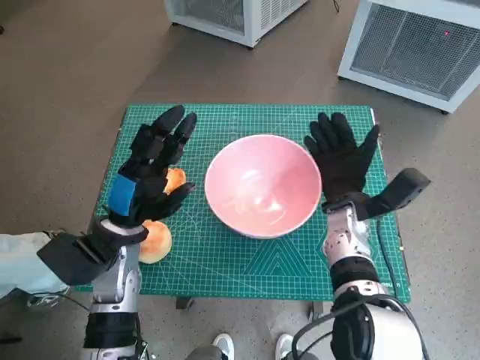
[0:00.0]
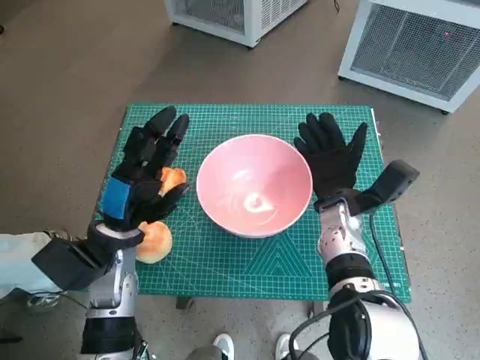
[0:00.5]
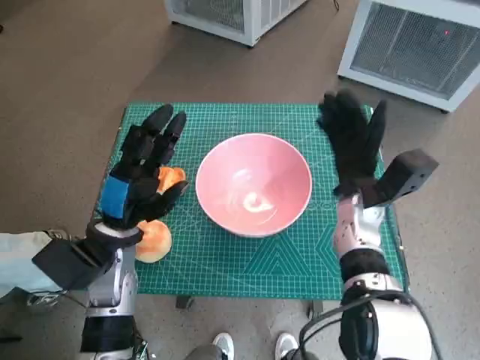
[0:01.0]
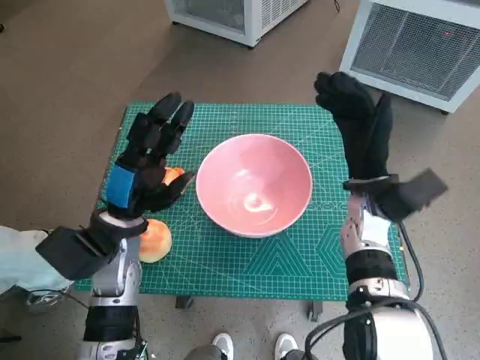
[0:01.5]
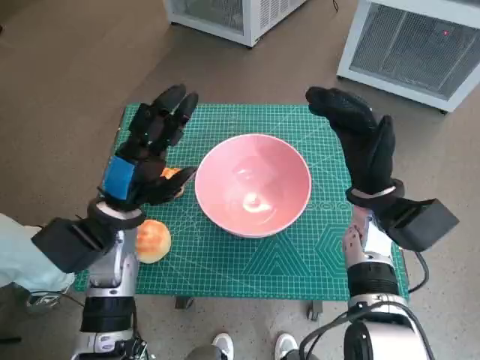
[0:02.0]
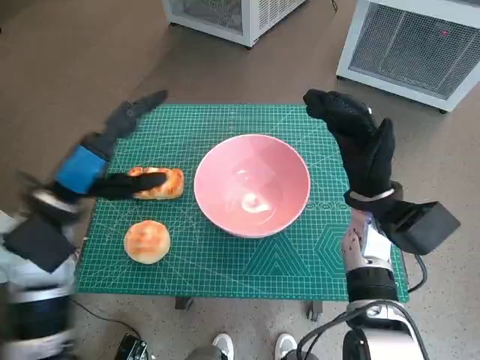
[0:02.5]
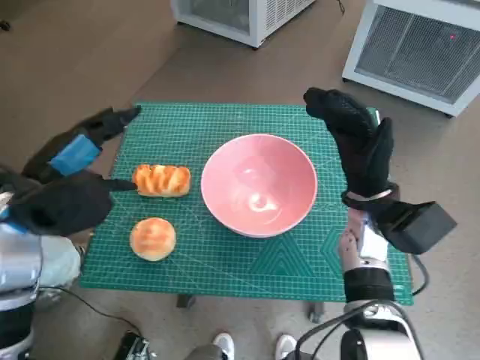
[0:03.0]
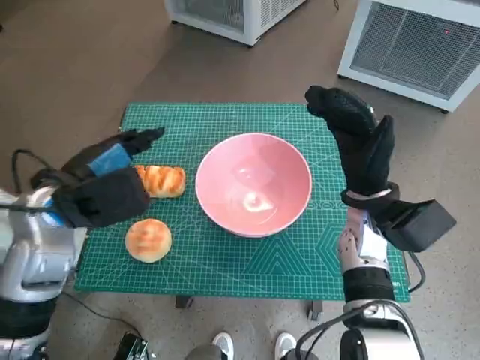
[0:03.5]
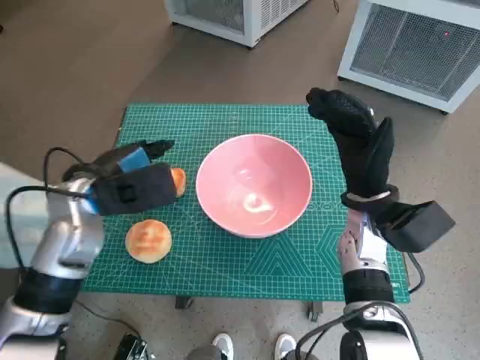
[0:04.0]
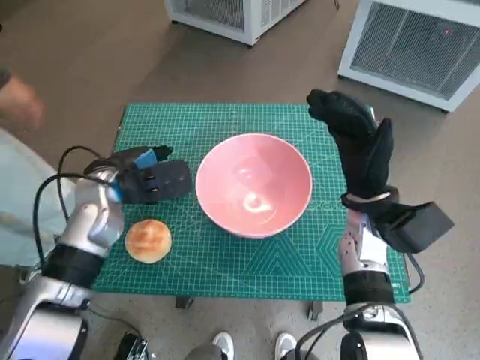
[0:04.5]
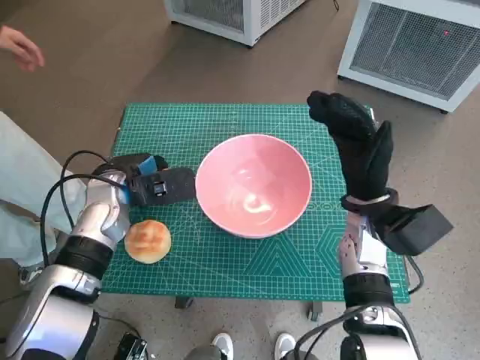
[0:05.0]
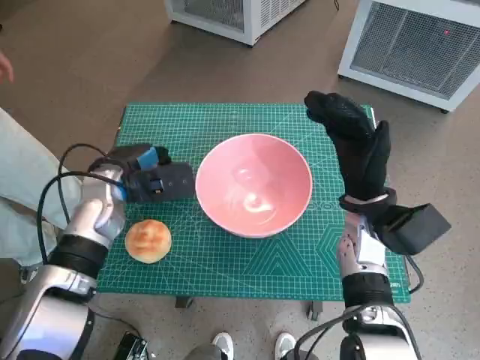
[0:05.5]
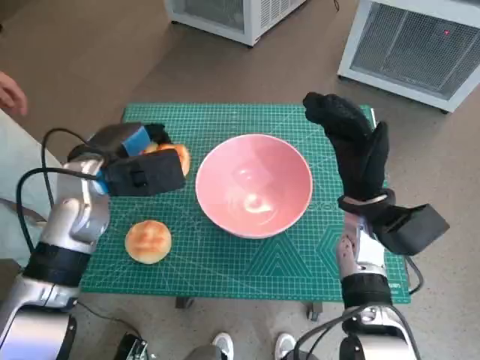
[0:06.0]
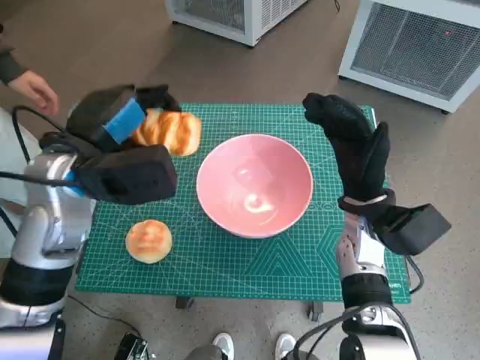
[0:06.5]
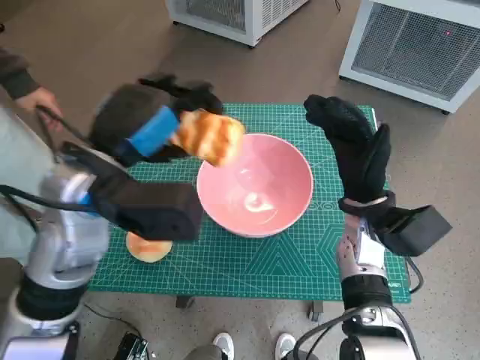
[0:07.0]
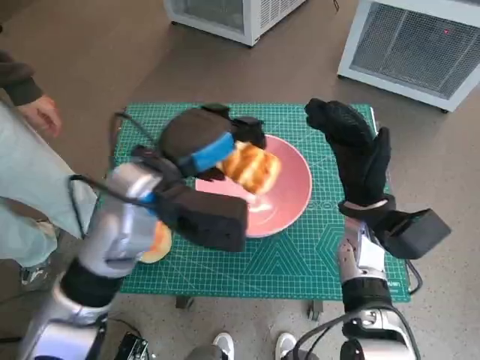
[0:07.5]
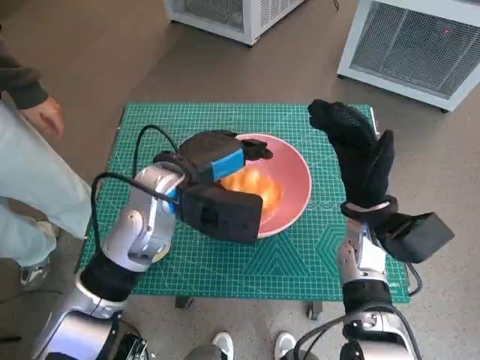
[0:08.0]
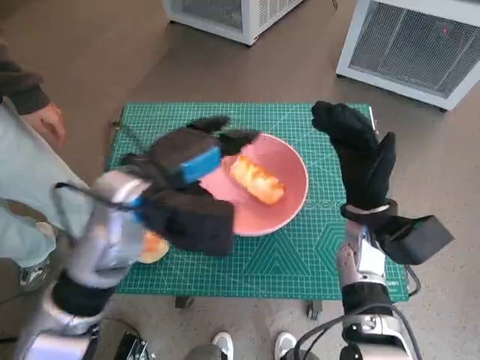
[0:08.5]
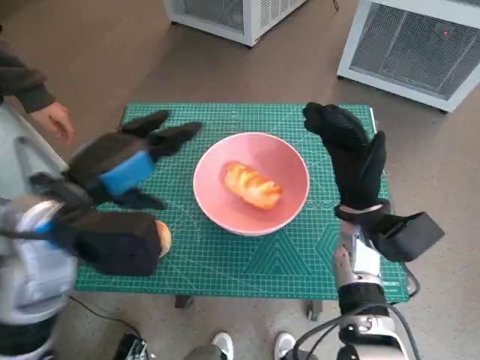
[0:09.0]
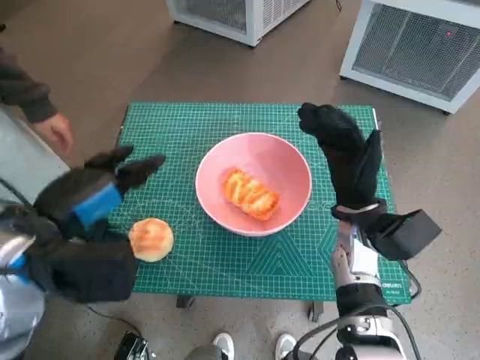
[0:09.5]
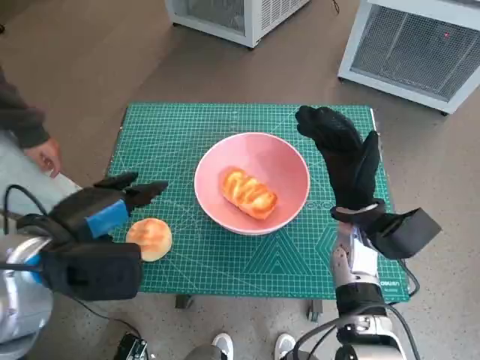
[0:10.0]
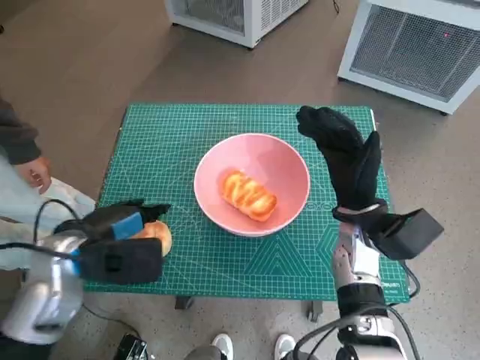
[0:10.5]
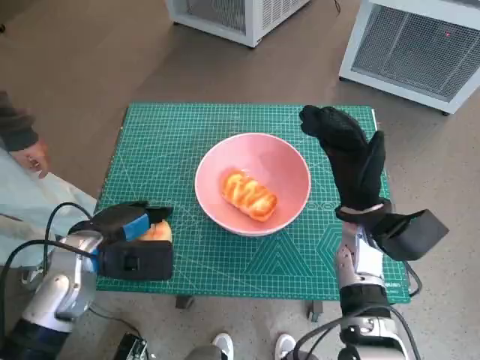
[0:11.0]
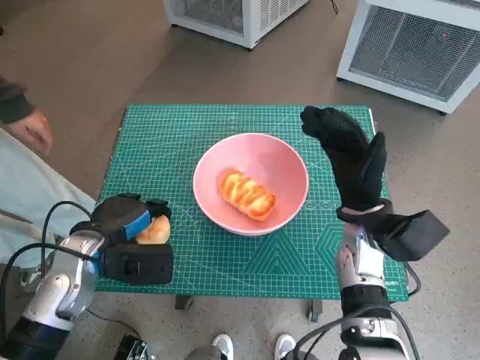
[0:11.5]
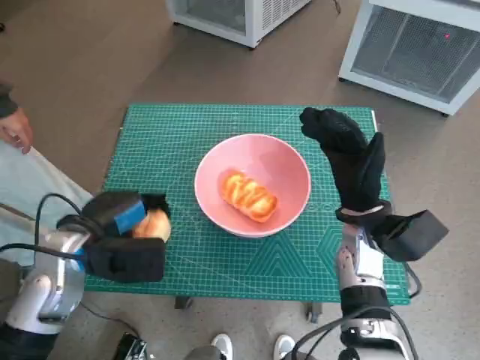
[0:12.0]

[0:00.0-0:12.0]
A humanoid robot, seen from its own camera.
Task of the whole recording: Push the bowl into the center of the table and put the bread into the bowl.
Step, 0:01.0 to 0:05.0: Grasp the long bread with left hand.
Step, 0:05.5 to 0:08.0: Place the long bread in pink bowl with left hand.
Step, 0:08.5 to 0:11.0: Grasp the round bread with left hand.
0:00.0 to 0:02.0: The right hand travels upward by some 5 cm.
0:06.0 to 0:08.0: The left hand shifts about 10 cm to the right.
0:08.0 to 0:10.0: The left hand heads to the left and backward, covering some 15 cm.
0:10.0 to 0:12.0: The left hand moves downward, some 5 cm.

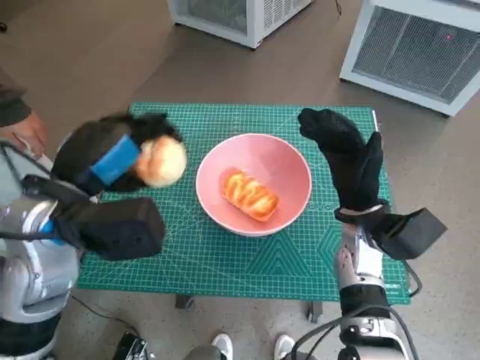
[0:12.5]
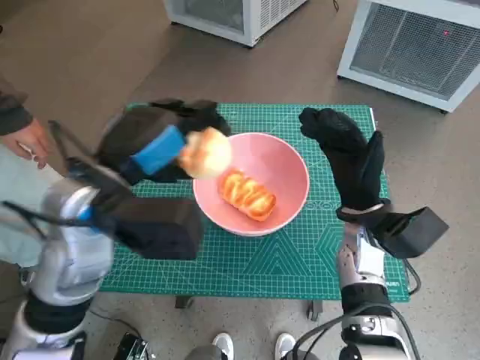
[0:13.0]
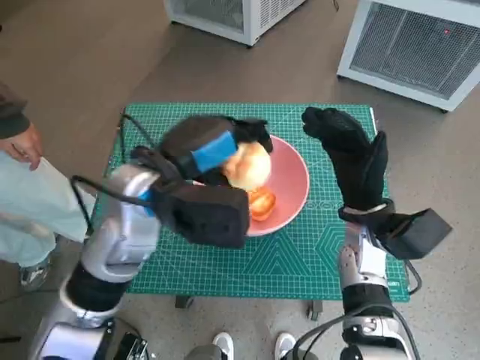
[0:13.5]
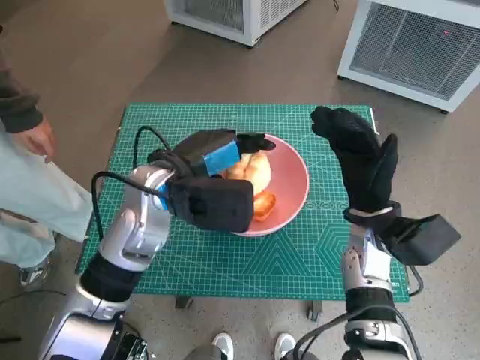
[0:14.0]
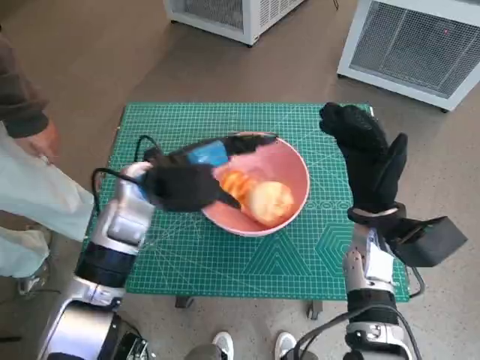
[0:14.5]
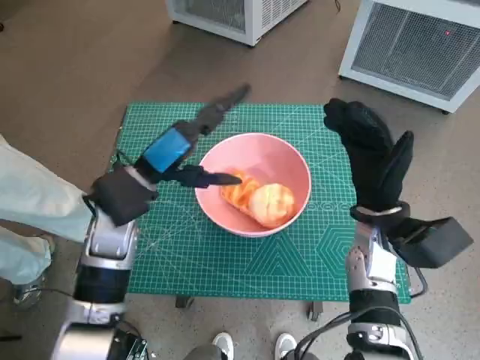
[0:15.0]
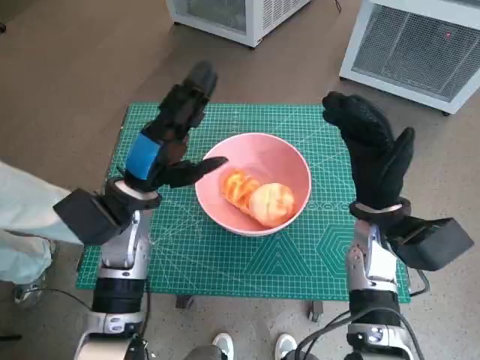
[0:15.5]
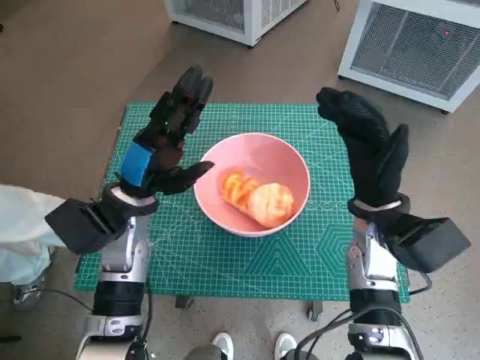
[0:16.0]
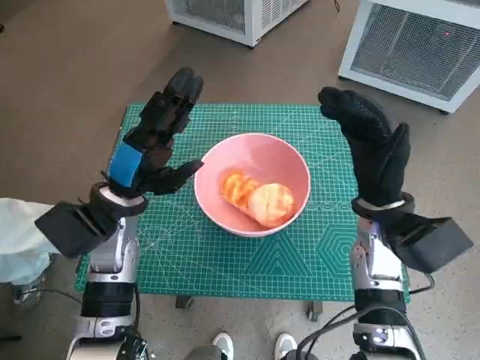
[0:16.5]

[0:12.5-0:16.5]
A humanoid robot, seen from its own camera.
Task of the whole recording: Push the bowl into the center of the table and put the bread into the bowl.
Step, 0:12.5 to 0:14.0: Place the round bread in pink bowl with left hand.
0:12.5 to 0:14.5: The left hand moves forward, to the right and downward, some 10 cm.
0:14.5 to 0:16.5: The left hand moves about 5 cm.

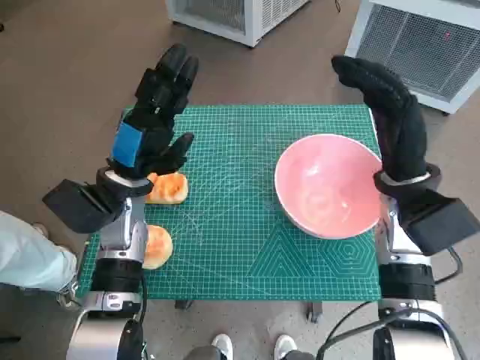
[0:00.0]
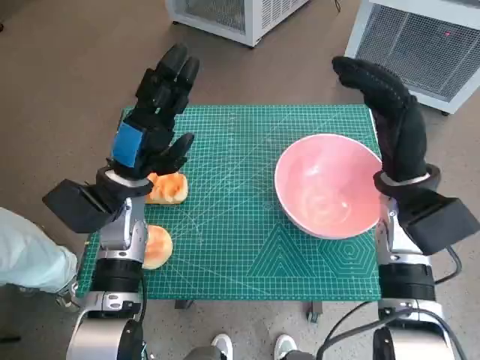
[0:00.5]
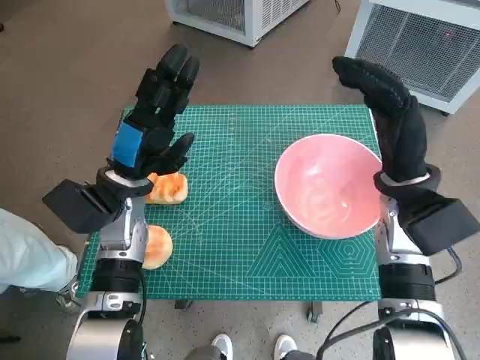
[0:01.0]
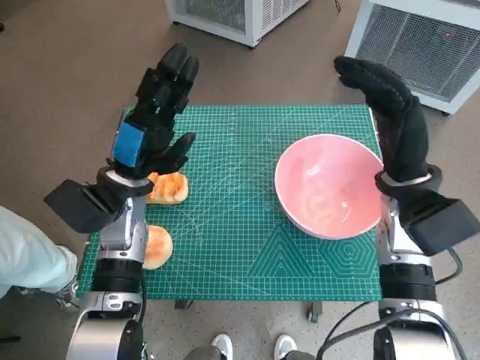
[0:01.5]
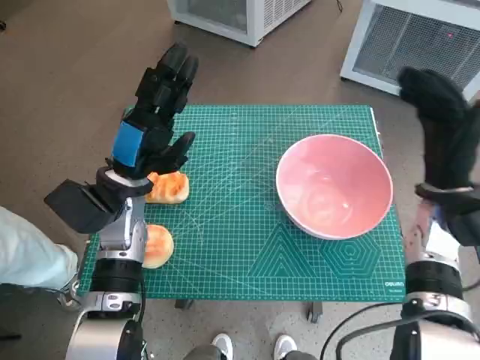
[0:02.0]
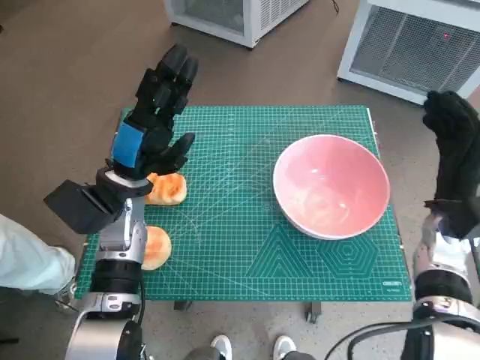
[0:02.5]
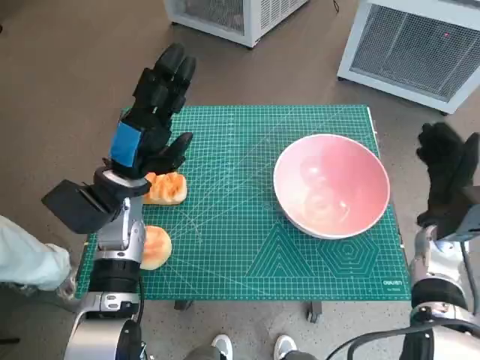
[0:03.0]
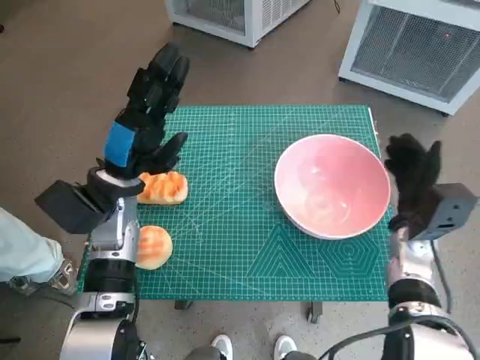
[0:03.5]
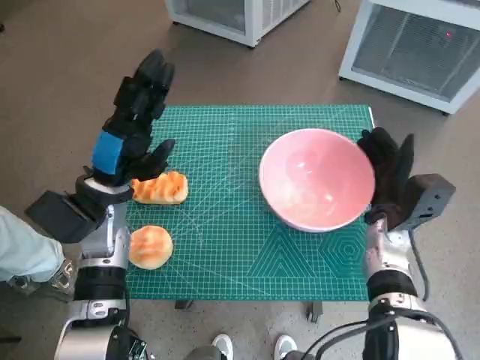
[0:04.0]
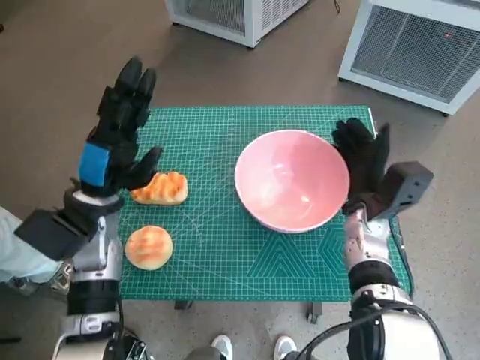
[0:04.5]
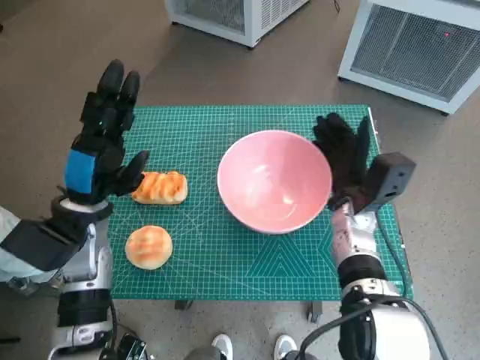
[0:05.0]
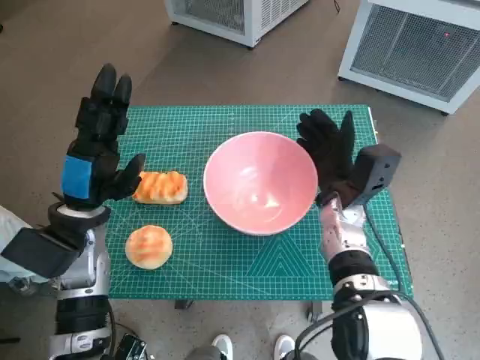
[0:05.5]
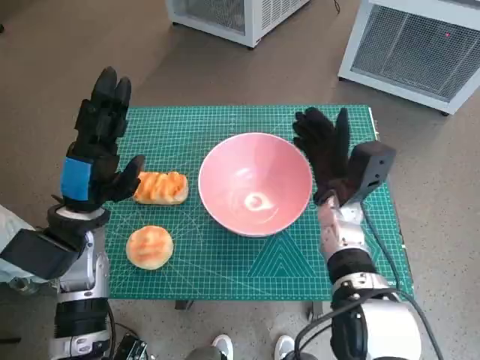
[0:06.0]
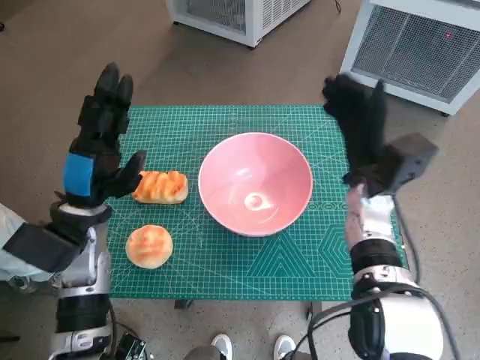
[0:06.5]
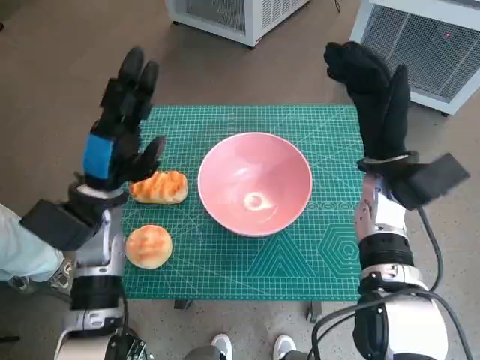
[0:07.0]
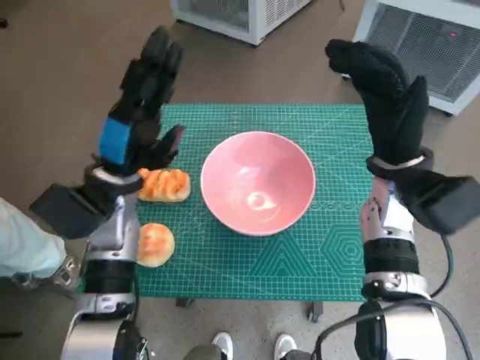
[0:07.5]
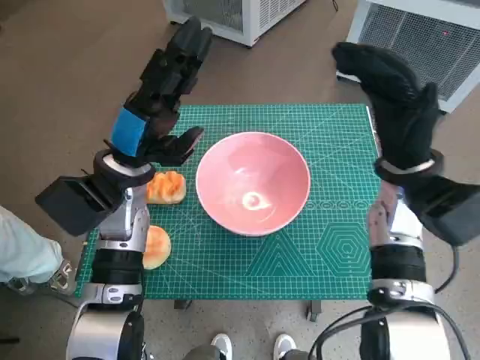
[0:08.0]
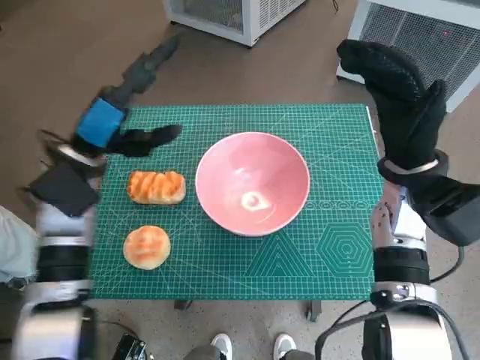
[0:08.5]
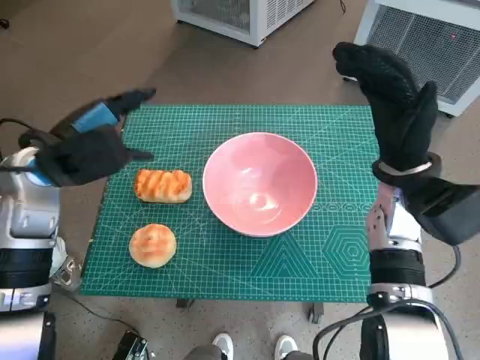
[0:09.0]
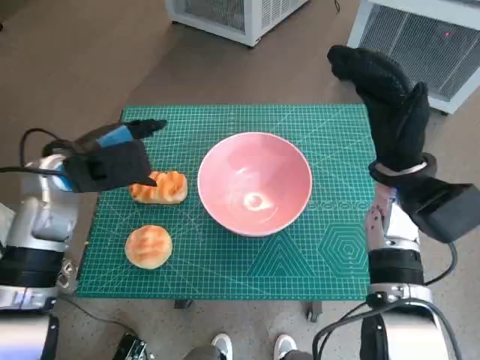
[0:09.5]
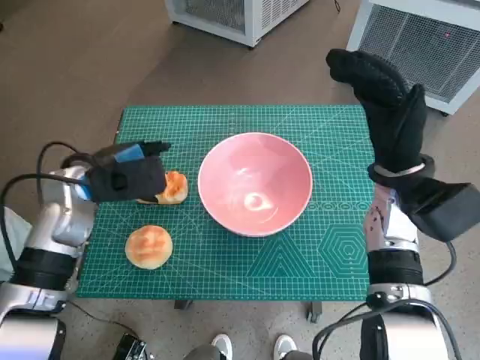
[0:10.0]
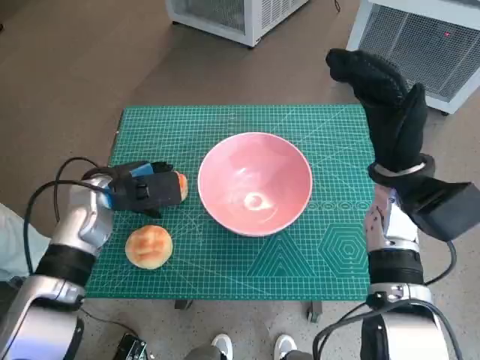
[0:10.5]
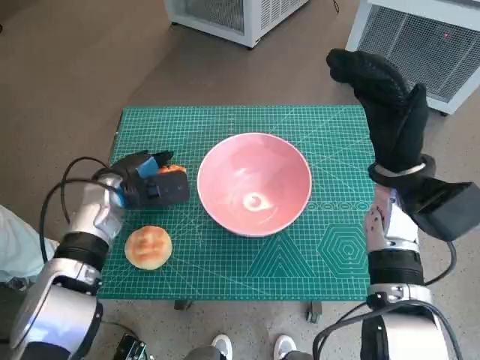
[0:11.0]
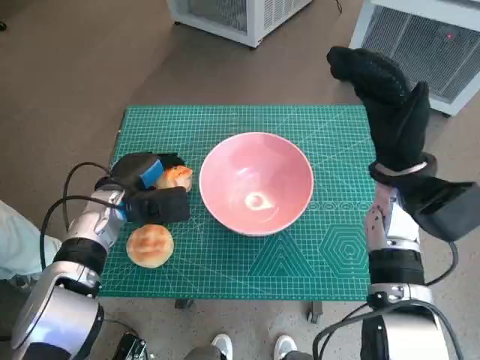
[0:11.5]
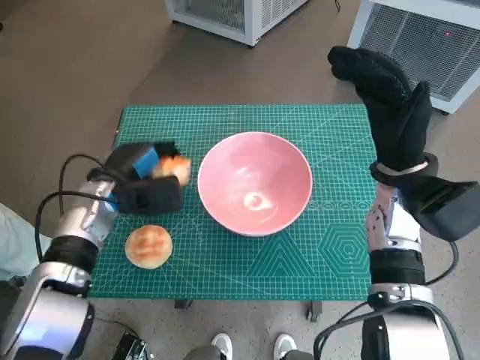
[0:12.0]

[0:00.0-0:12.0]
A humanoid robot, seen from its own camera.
Task of the whole recording: Push the bowl into the center of the table and put the bread into the bowl.
Step, 0:00.0 to 0:06.0: Move the pink bowl to the center of table with right hand.
Step, 0:06.5 to 0:11.0: Grasp the long bread with left hand.
0:02.0 to 0:04.0: The right hand heads downward, covering some 10 cm.
0:04.0 to 0:06.0: The right hand shifts some 10 cm to the left.
0:06.0 to 0:08.0: The left hand travels to the right and forward by about 10 cm, while the right hand is displaced upward and to the right by about 10 cm.
0:08.0 to 0:10.0: The left hand is displaced to the left by about 5 cm.
0:10.0 to 0:12.0: The left hand moves downward, some 5 cm.
